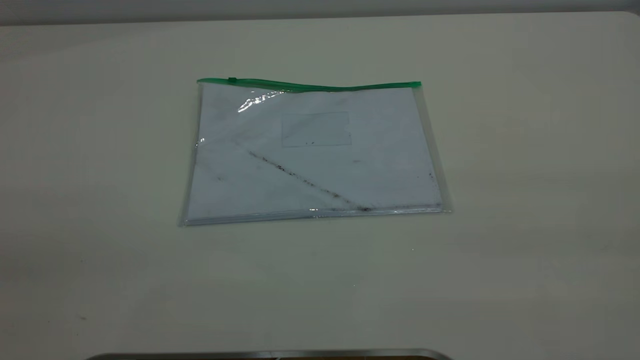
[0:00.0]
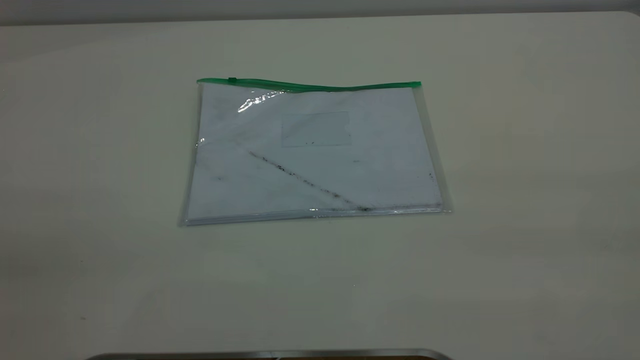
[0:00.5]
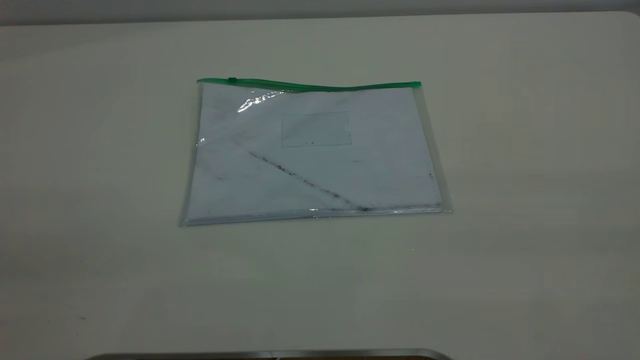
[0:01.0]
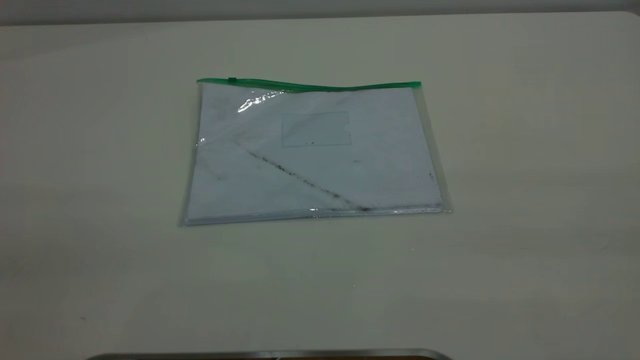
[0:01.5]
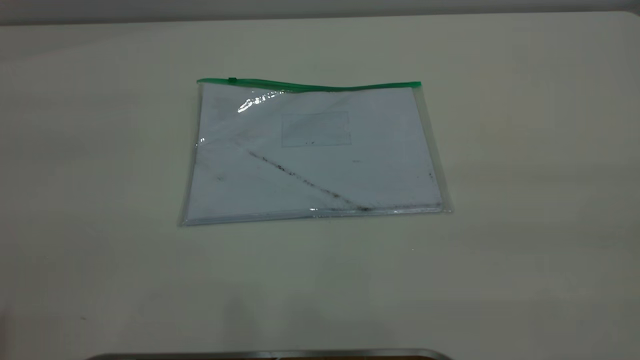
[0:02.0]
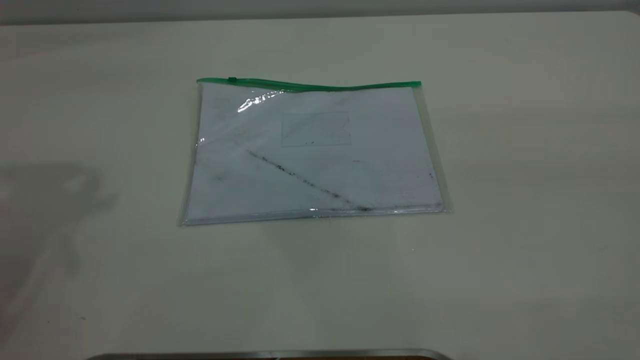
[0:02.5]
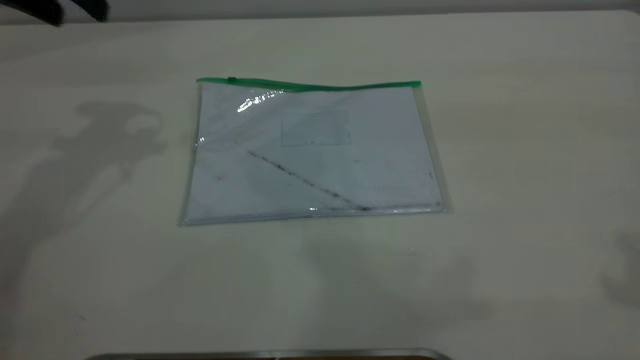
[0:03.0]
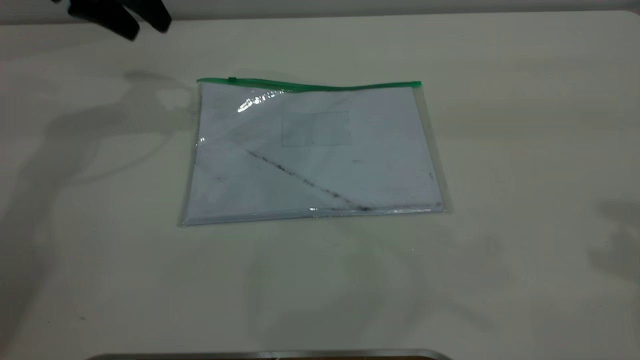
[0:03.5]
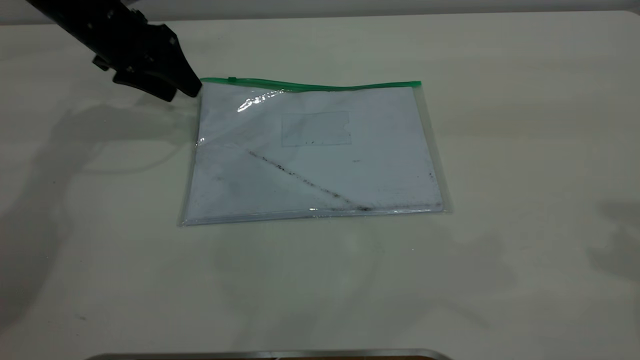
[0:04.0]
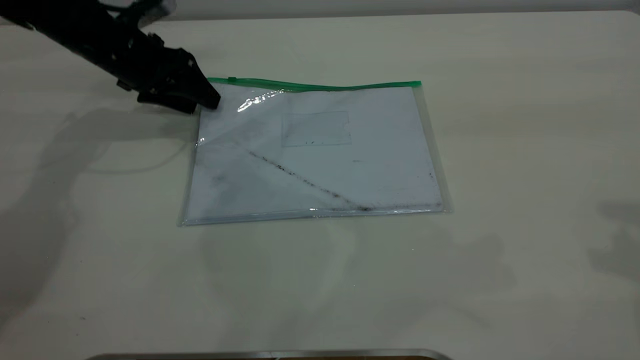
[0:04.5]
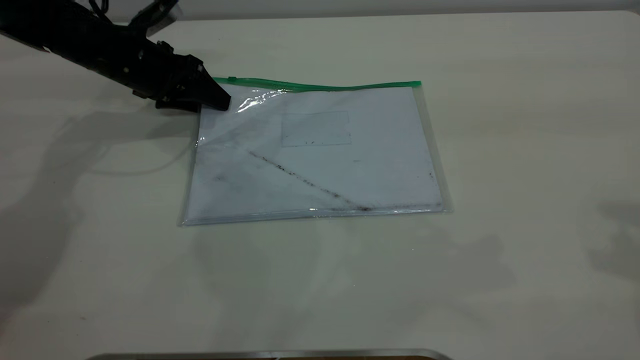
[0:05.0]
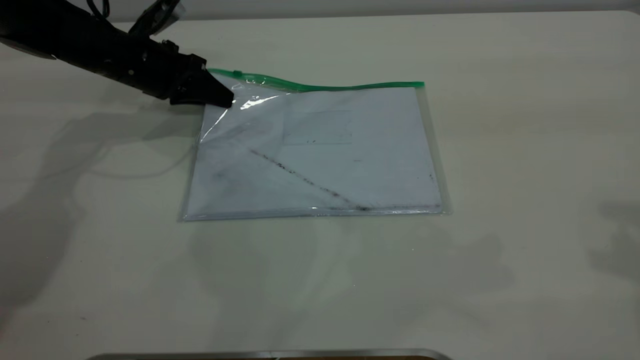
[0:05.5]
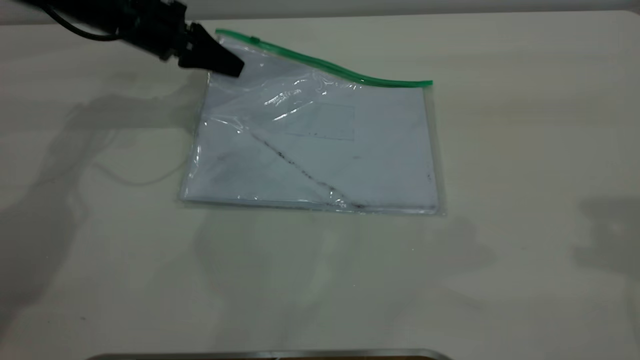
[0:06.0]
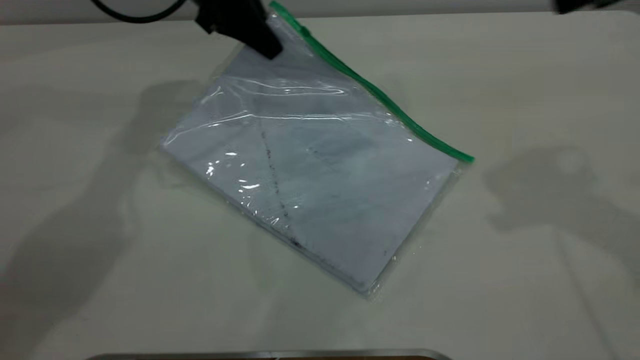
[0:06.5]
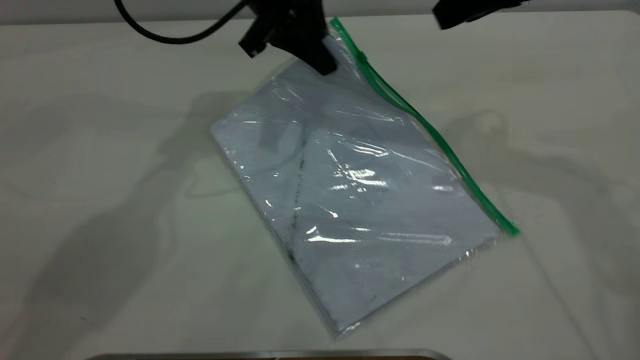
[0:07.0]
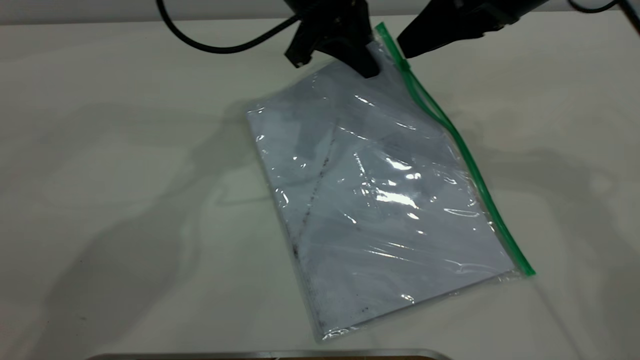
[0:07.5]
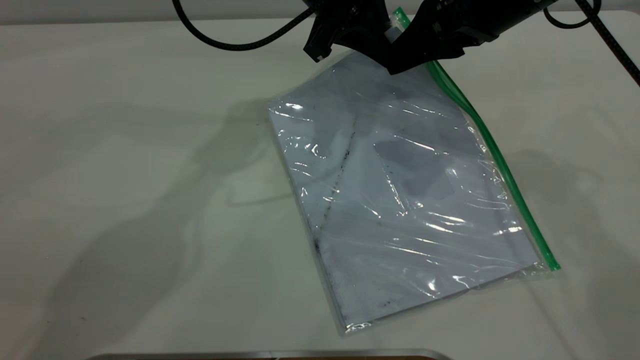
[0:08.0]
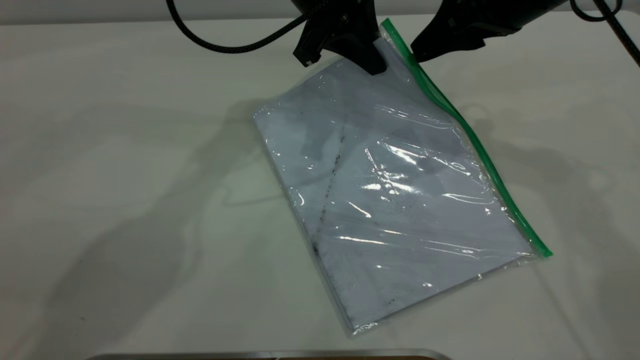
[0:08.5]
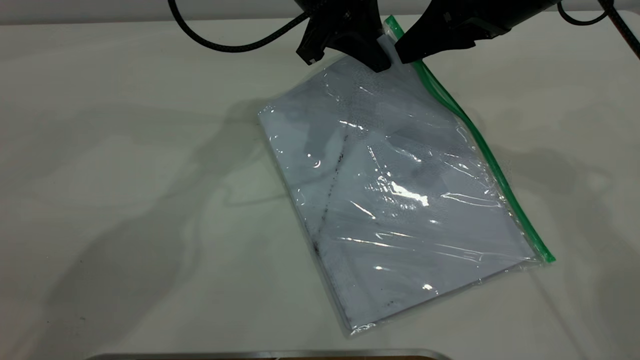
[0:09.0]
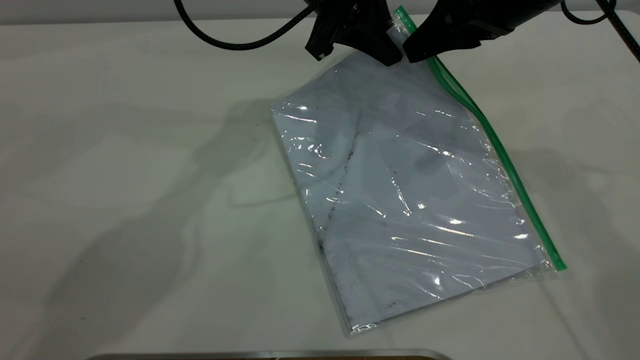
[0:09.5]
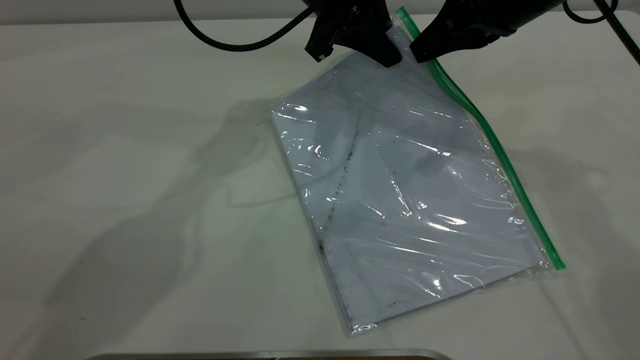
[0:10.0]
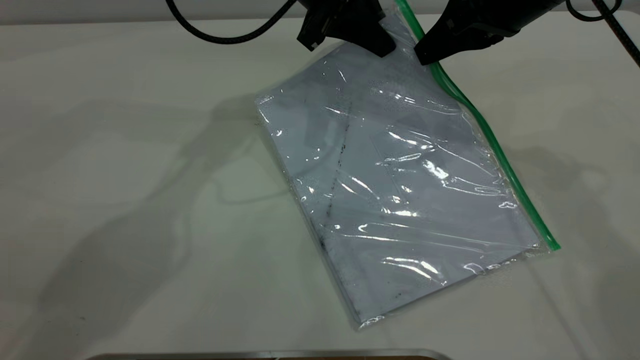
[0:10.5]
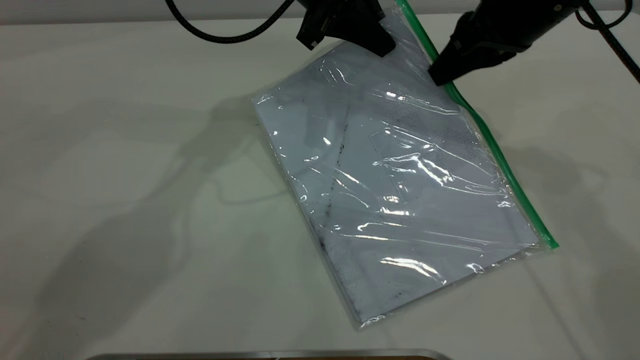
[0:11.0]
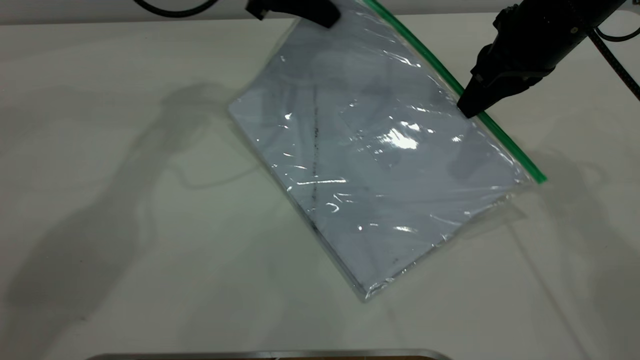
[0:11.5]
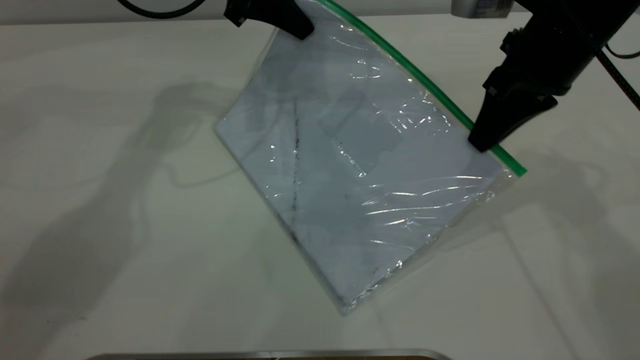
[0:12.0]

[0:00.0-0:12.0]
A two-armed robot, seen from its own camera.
Step, 0:00.0 to 0:05.5: Pick up the transparent plastic bag with the left gripper.
0:02.0 to 0:04.0: The left gripper shifts about 50 cm forward and downward.
0:04.0 to 0:06.0: The left gripper closes its fingers.
0:06.0 to 0:08.0: The left gripper travels to the right by approximately 20 cm. The right gripper is displaced forward, downward and to the left by about 25 cm.
0:08.0 to 0:10.0: The right gripper closes up.
0:10.0 to 0:12.0: The left gripper heads to the left, covering about 10 cm.

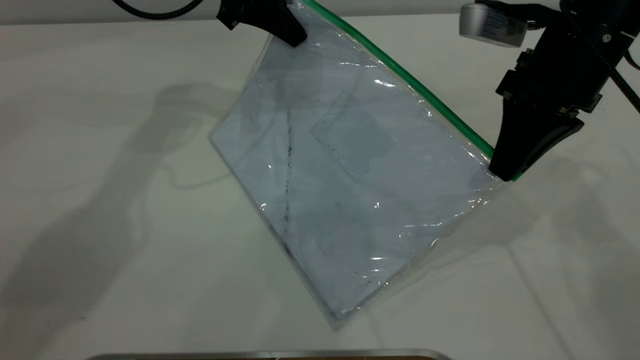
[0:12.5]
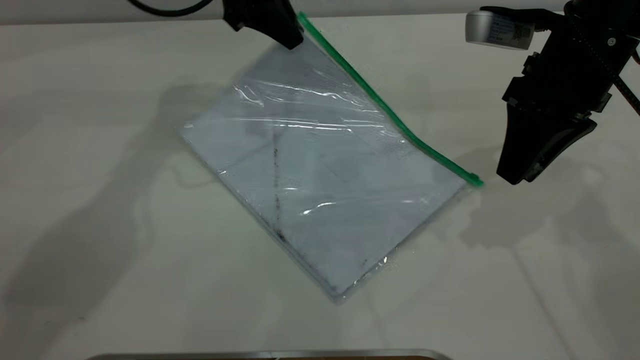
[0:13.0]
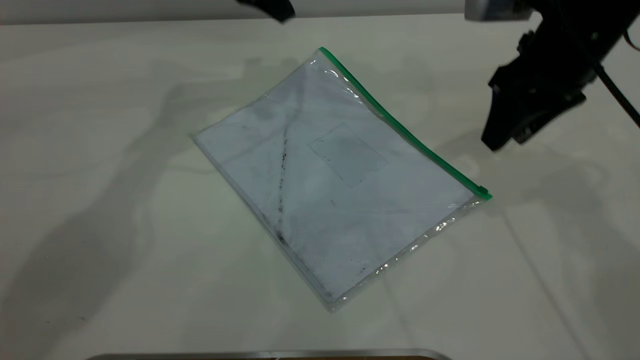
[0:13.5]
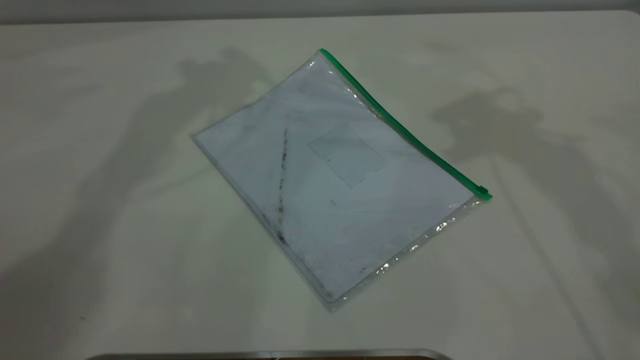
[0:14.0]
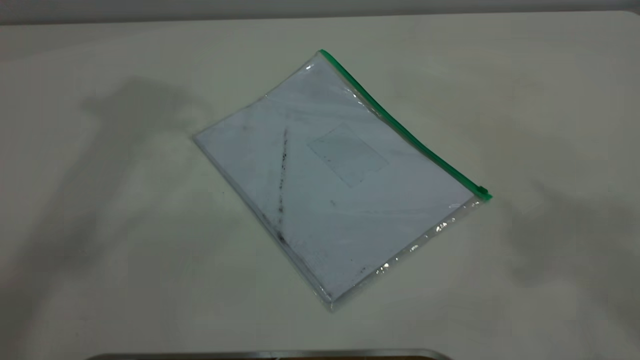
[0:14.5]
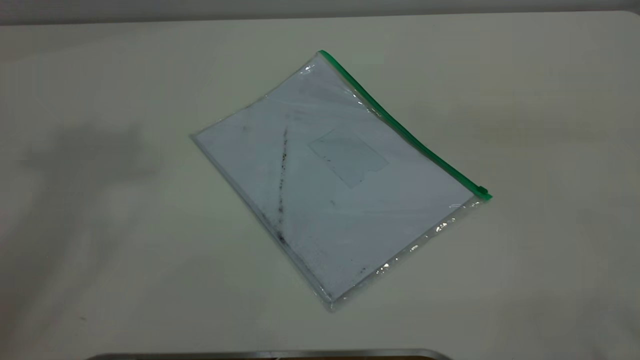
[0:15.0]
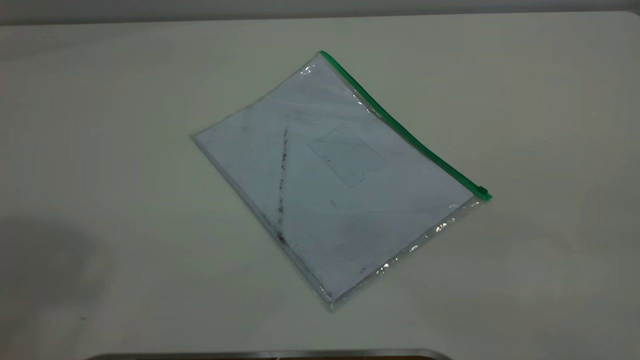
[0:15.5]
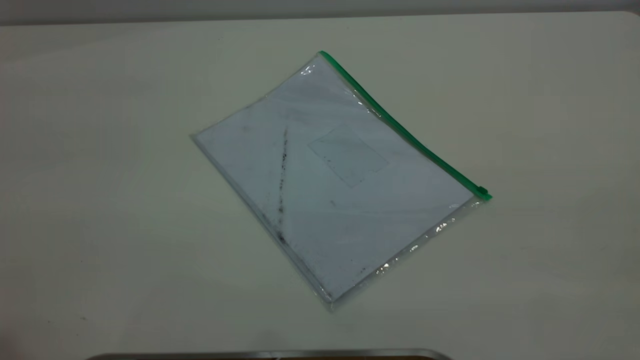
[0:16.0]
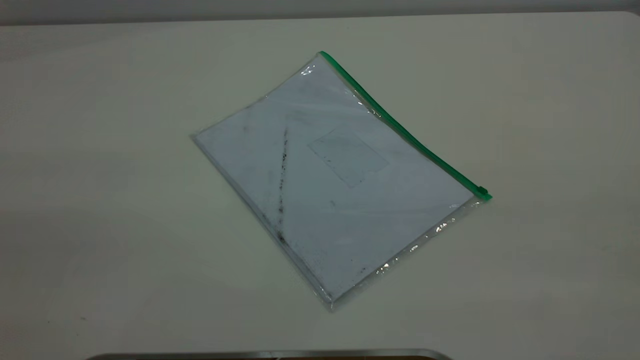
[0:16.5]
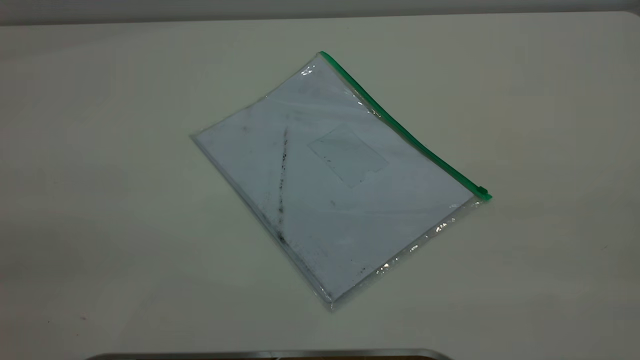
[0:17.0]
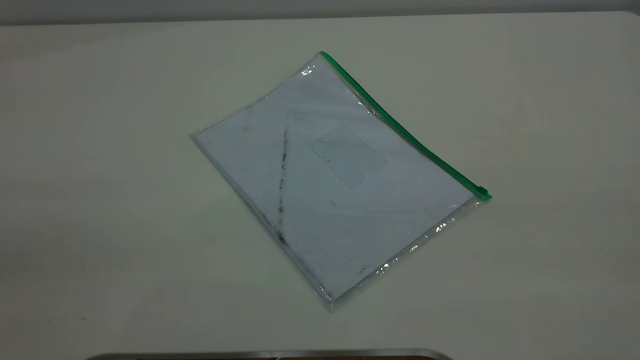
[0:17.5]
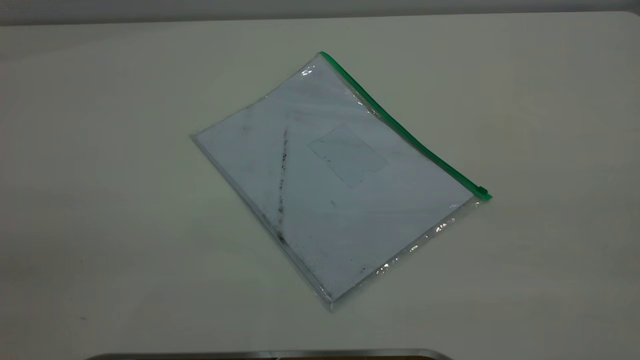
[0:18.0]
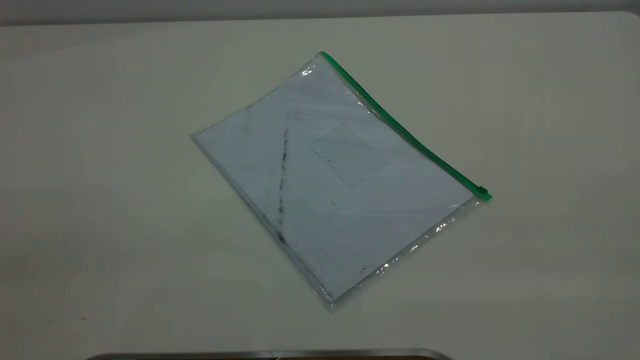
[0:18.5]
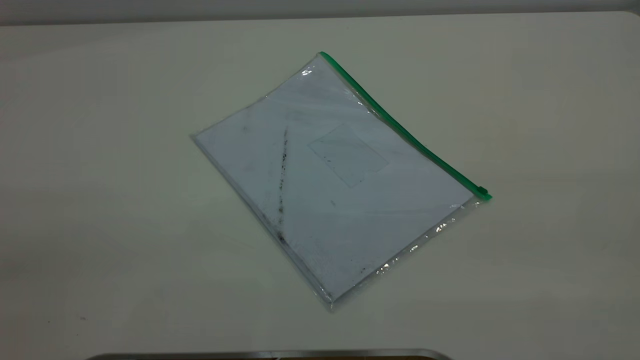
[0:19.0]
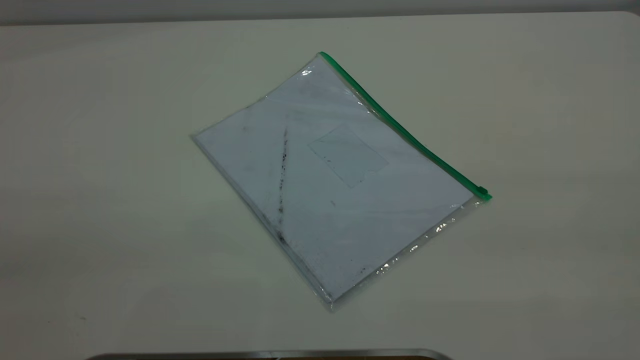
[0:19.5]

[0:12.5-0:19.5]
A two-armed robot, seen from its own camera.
0:12.5 to 0:14.5: Both grippers move upward, about 35 cm. The left gripper opens. The right gripper opens its fingers.

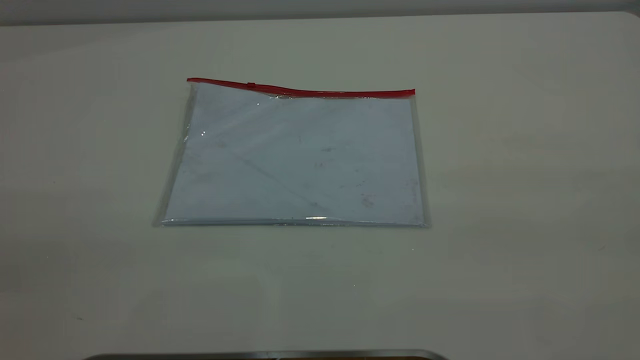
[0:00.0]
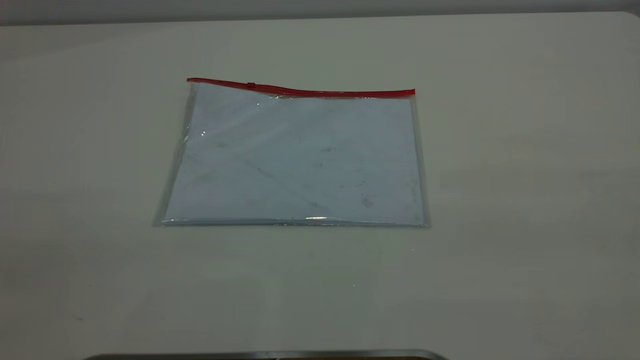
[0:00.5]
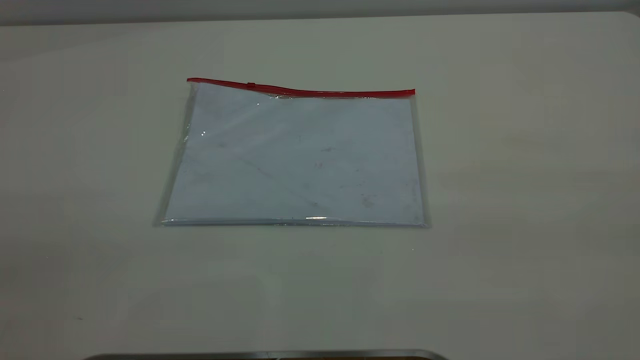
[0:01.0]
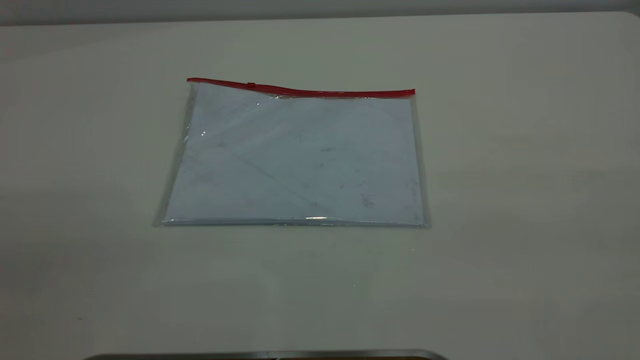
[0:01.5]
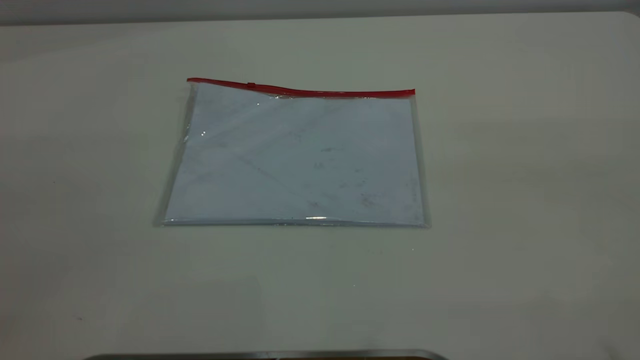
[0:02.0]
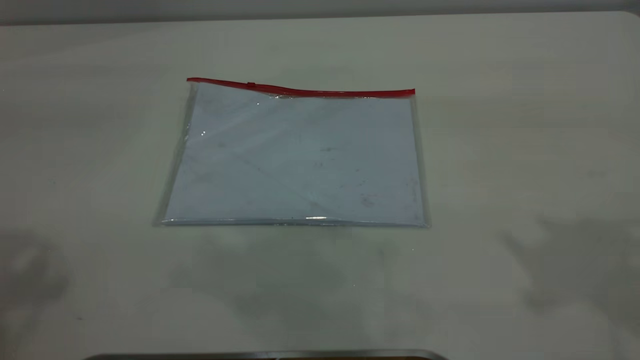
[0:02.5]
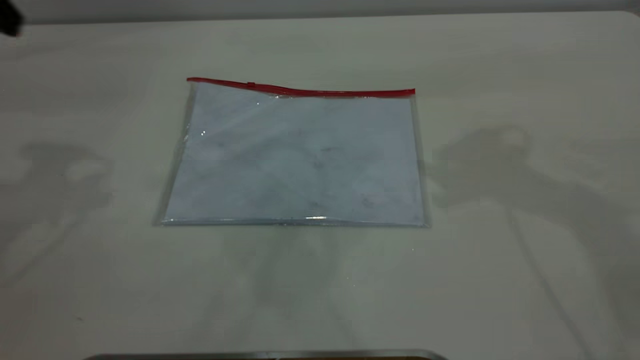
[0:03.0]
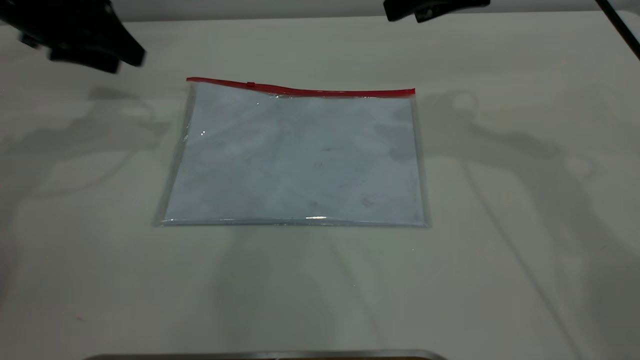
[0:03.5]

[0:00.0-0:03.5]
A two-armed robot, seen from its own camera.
0:02.0 to 0:03.5: The two grippers go about 40 cm forward and downward.
